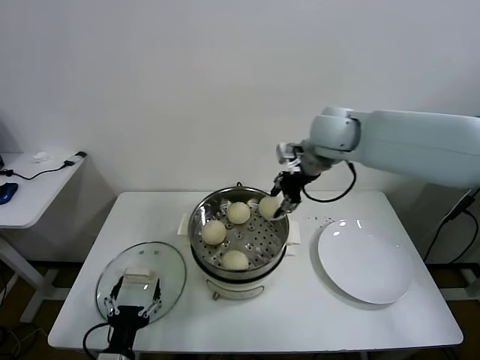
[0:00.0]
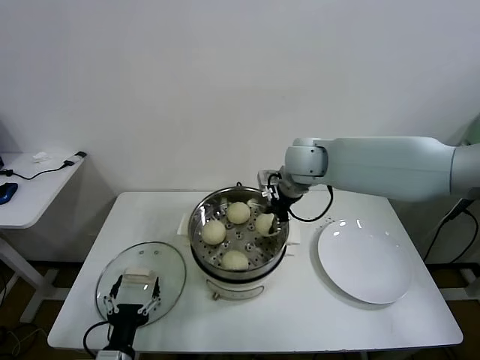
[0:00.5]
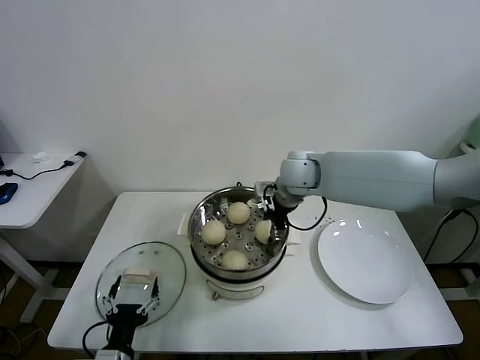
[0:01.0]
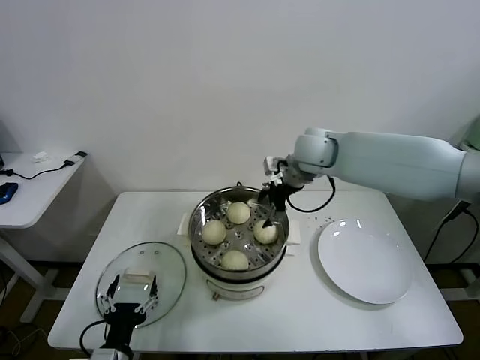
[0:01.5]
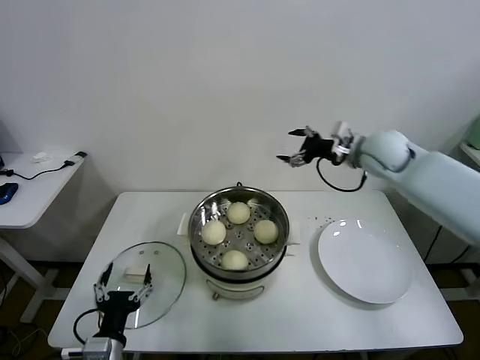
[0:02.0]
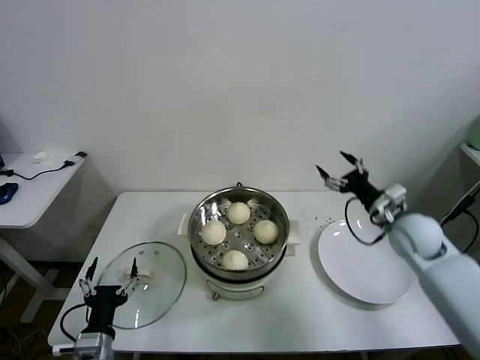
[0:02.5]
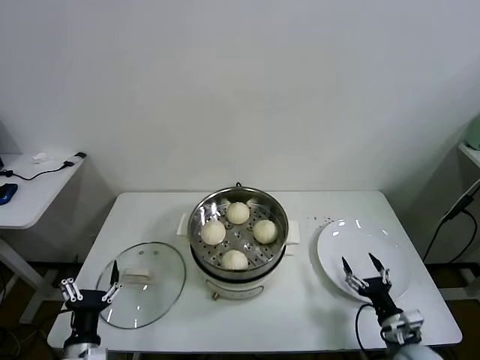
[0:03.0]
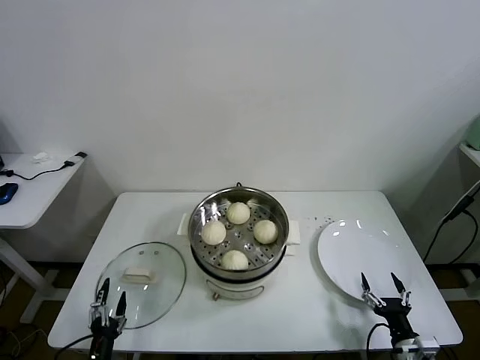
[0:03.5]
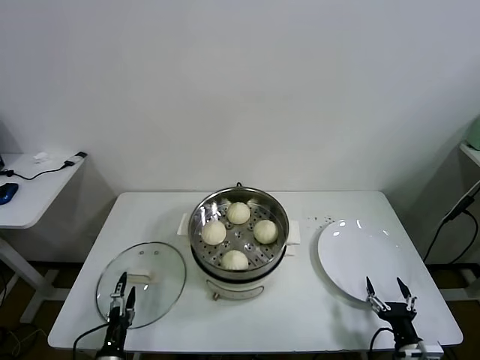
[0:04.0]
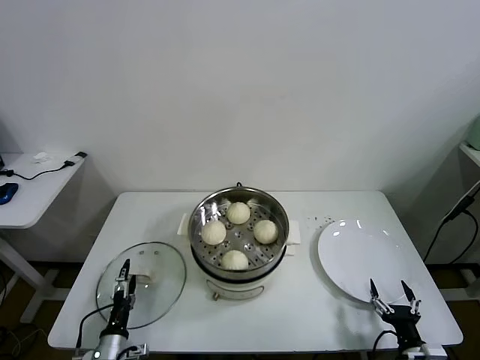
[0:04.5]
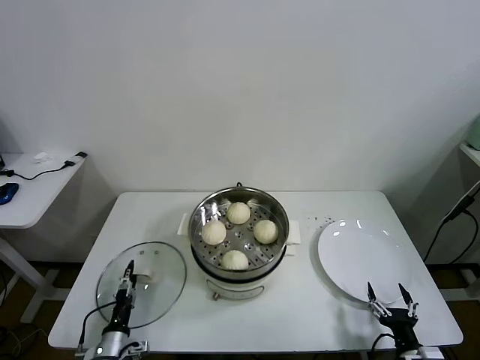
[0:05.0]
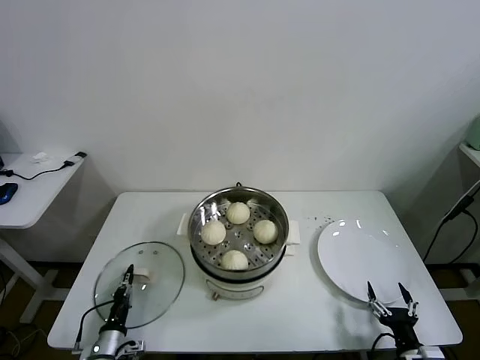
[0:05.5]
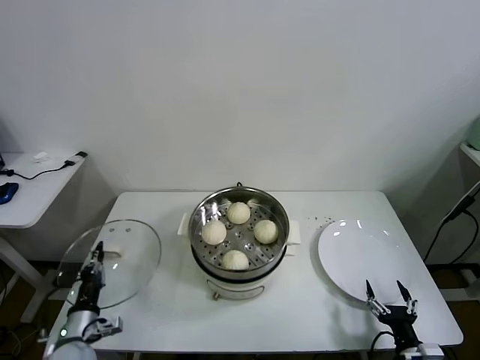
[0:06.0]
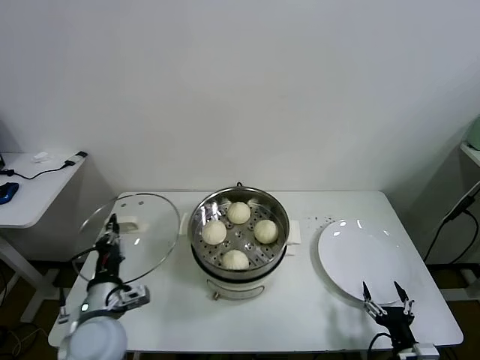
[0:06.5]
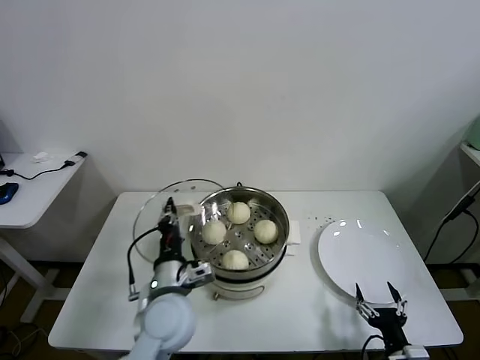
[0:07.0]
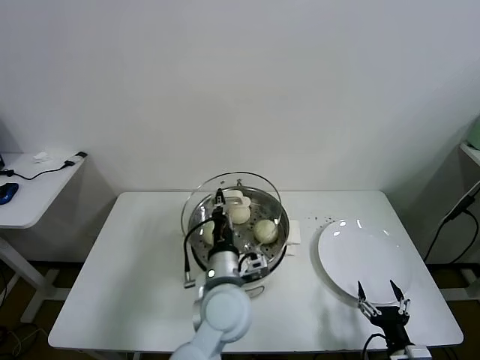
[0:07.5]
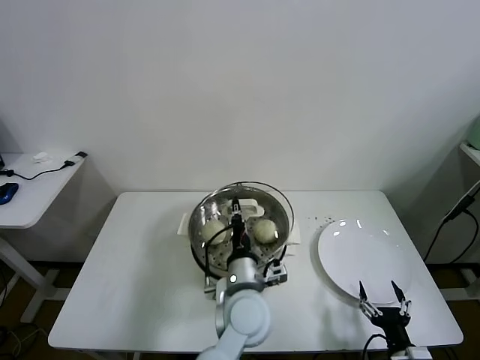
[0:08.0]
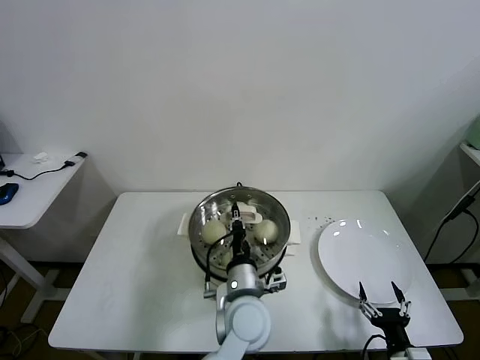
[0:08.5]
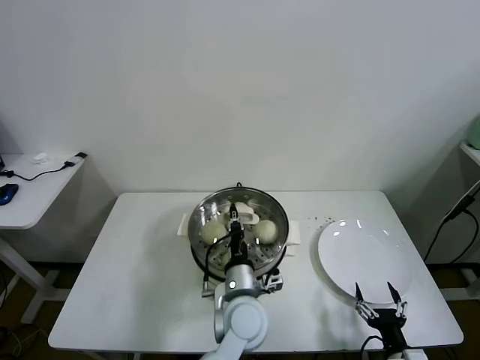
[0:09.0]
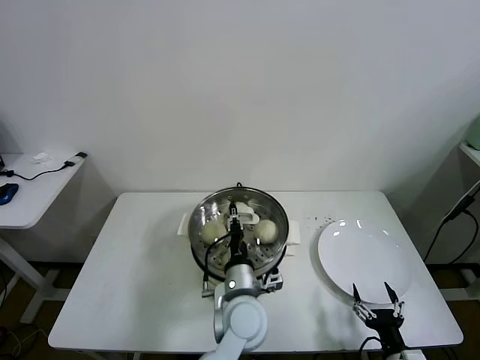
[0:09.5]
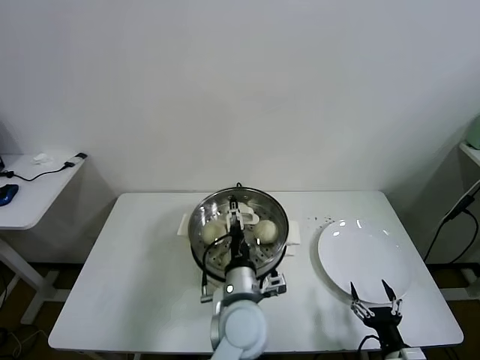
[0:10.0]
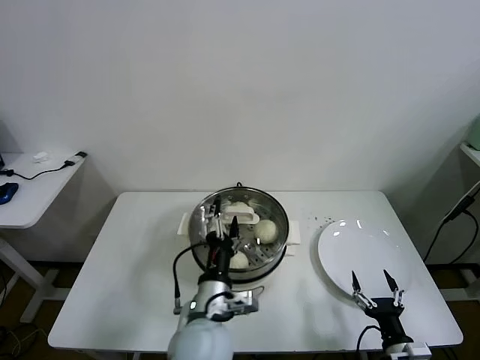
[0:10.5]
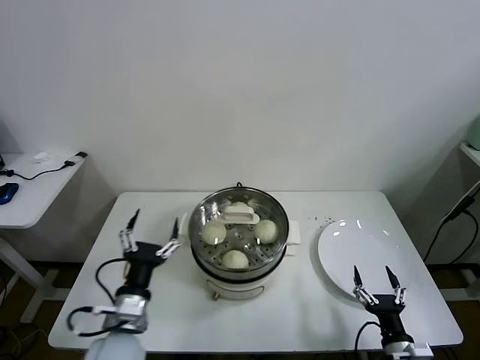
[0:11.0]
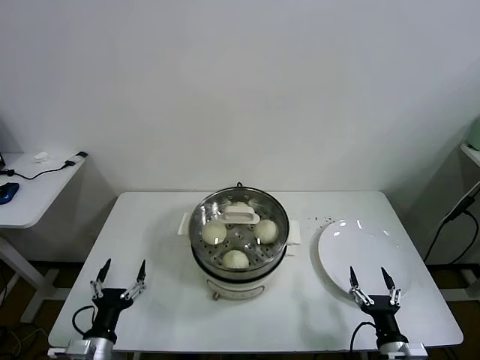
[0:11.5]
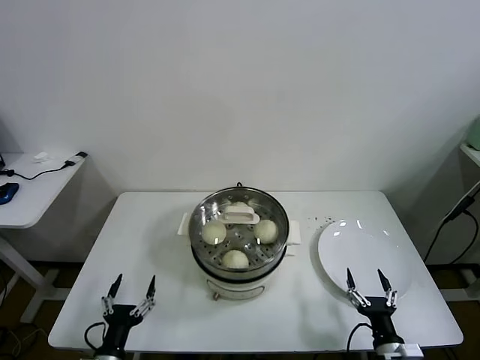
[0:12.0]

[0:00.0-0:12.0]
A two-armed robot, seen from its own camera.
Task of the whole recording: take steamed baozi put them in steamer.
Step, 0:01.5 to 0:05.5: Grasp the pot lid with left gripper.
Step, 0:06.0 to 0:10.0: Place the pot lid on the steamer with left gripper.
0:00.0 to 0:02.0: The right gripper shifts about 15 cm to the right and downward, and opens up.
0:02.0 to 0:04.0: The right gripper heads backward and downward, covering some 50 cm, while the left gripper shifts some 15 cm downward.
0:04.0 to 0:06.0: The left gripper heads forward and upward, covering approximately 10 cm, and closes up.
0:06.0 to 0:08.0: The left gripper shifts roughly 35 cm to the right.
0:08.0 to 0:10.0: The left gripper opens.
0:10.0 to 0:12.0: The left gripper goes about 35 cm to the left, downward and backward.

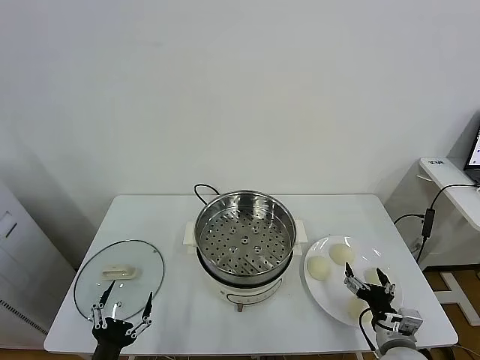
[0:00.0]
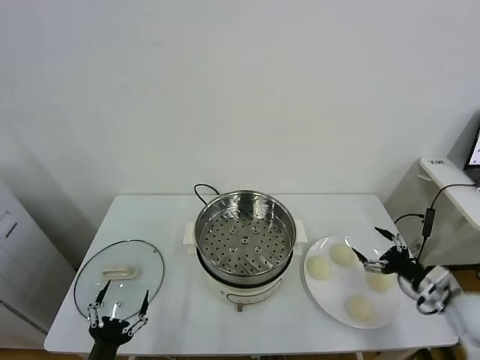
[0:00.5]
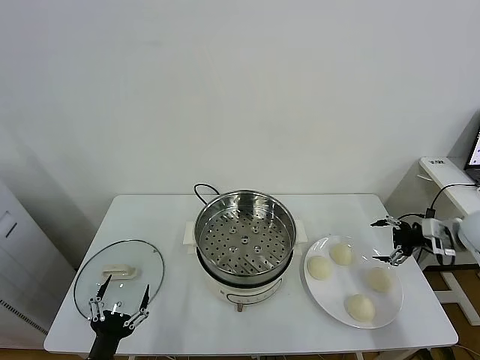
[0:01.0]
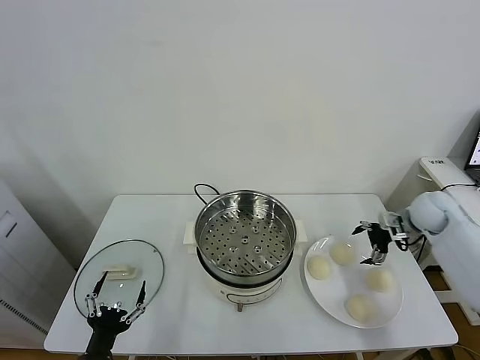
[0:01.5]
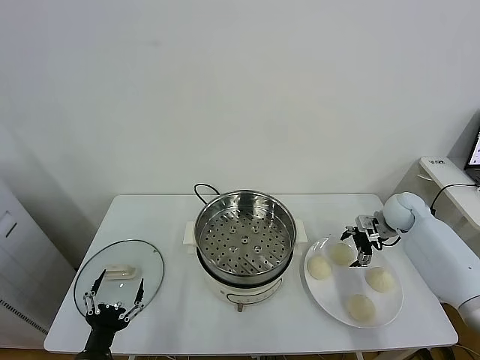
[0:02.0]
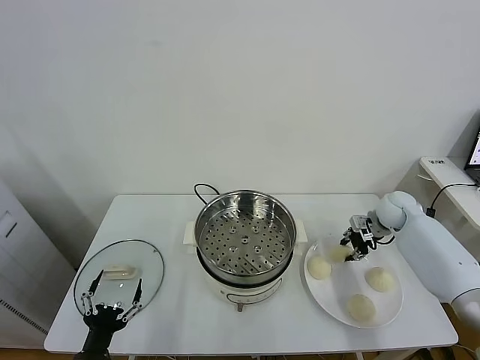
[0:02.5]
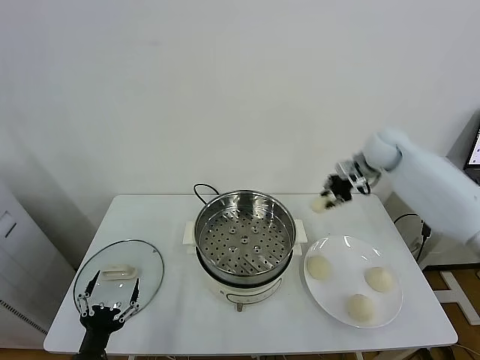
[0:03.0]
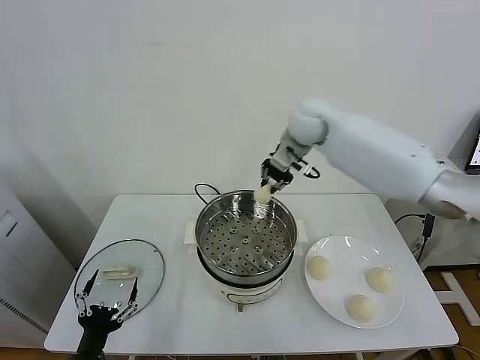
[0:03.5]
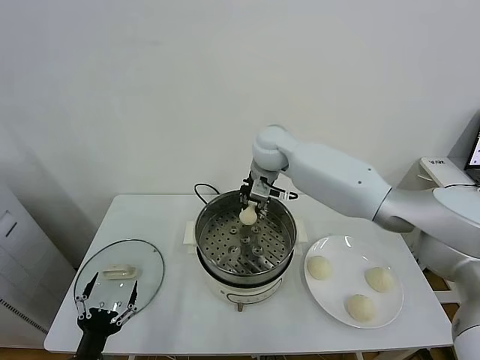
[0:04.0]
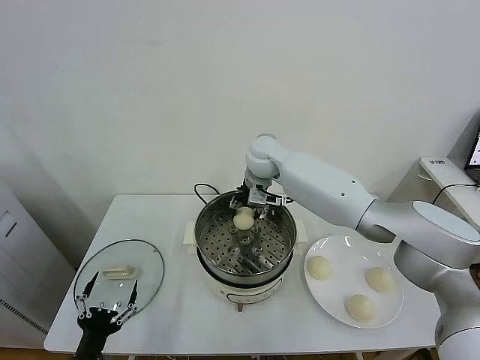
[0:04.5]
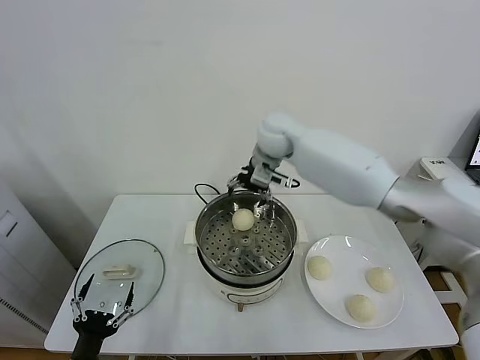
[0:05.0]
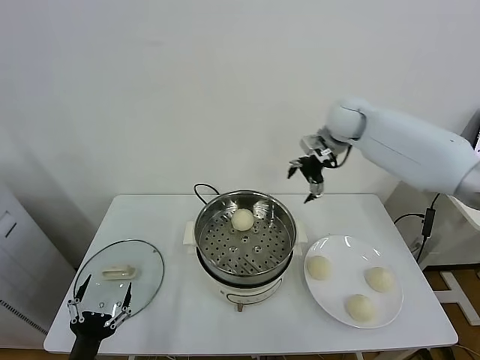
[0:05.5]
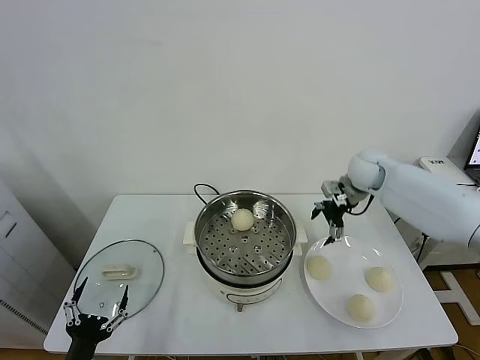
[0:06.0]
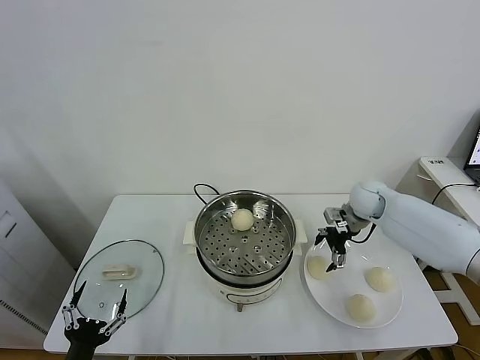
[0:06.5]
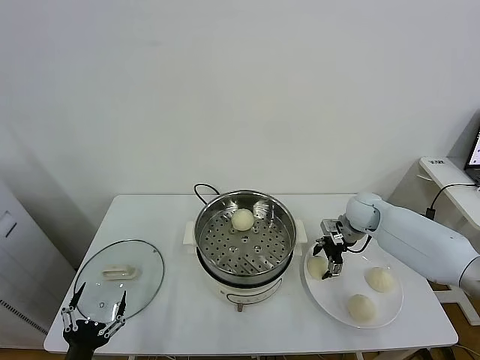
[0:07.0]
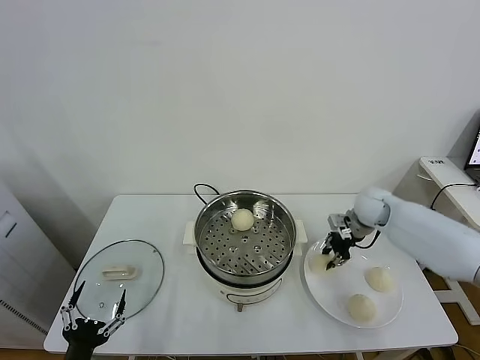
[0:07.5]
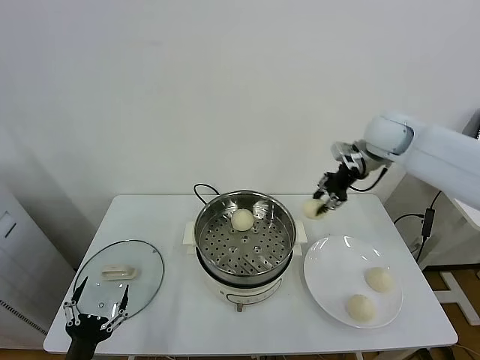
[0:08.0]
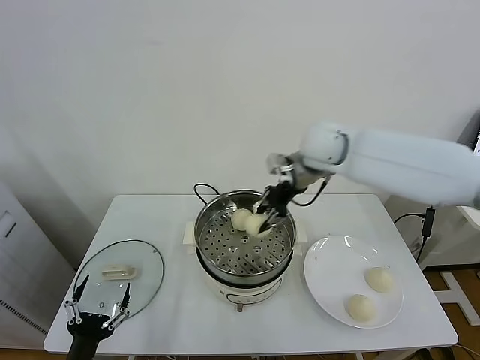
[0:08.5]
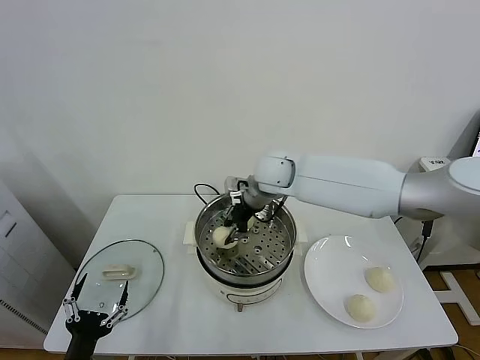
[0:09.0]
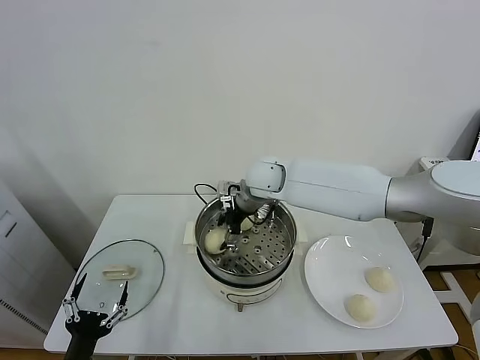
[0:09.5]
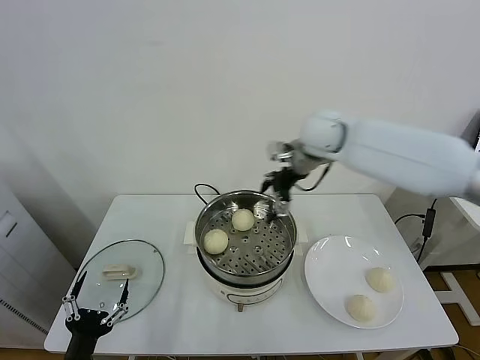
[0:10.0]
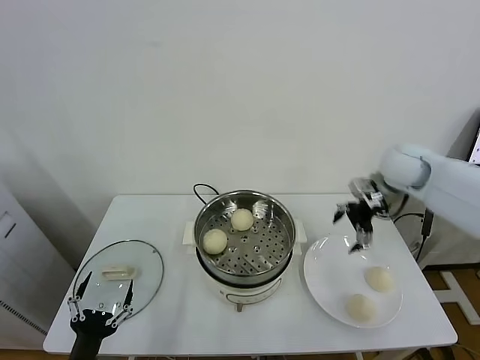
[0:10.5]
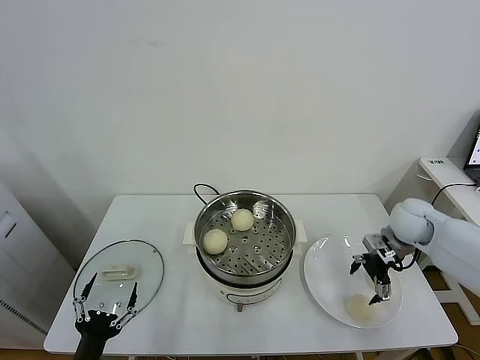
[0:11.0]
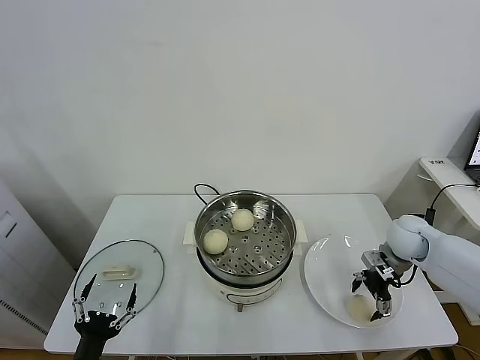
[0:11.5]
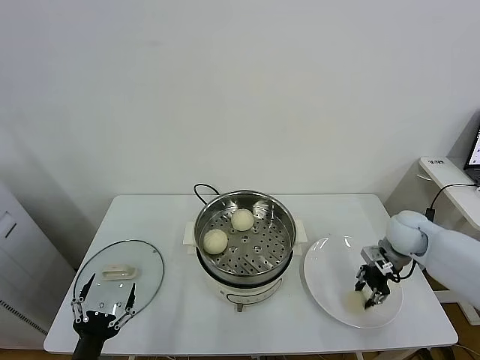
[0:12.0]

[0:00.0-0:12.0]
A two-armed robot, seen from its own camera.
Task of the whole recording: take steamed baozi put them in steamer.
Step, 0:00.0 to 0:02.0: Grasp the baozi in the plate with right gripper.
Step, 0:02.5 to 0:04.5: Place the baozi on the steamer with right gripper.
Step, 0:05.0 to 0:07.0: Grasp the baozi in the plate with right gripper.
Step, 0:07.5 to 0:09.5: Place the baozi on the steamer with right gripper.
Step, 0:10.0 to 0:11.5: Grasp the baozi in the plate with right gripper.
0:02.0 to 0:04.0: The right gripper is displaced to the left and upward by roughly 40 cm, and closes up.
0:04.0 to 0:06.0: The right gripper shifts about 25 cm to the right, and opens up.
0:06.0 to 0:08.0: The right gripper heads upward, covering roughly 15 cm, and closes up.
0:08.0 to 0:10.0: The right gripper is displaced to the left by roughly 10 cm, and opens its fingers.
0:10.0 to 0:12.0: The right gripper shifts roughly 30 cm downward and to the right, and closes its fingers.

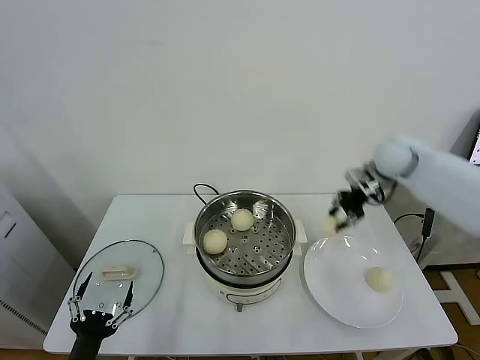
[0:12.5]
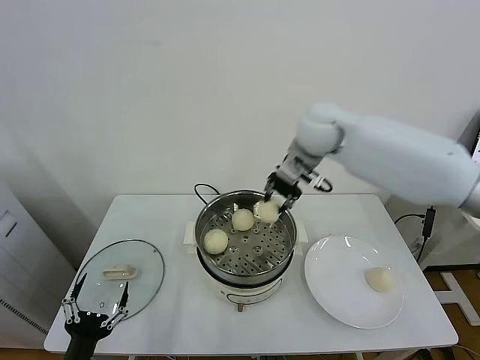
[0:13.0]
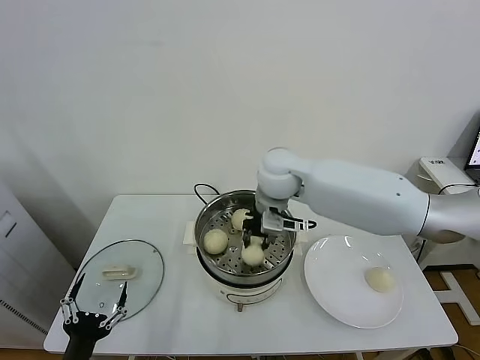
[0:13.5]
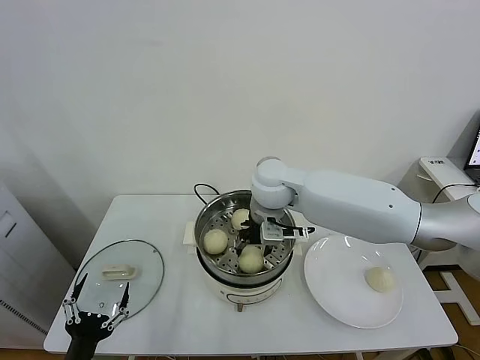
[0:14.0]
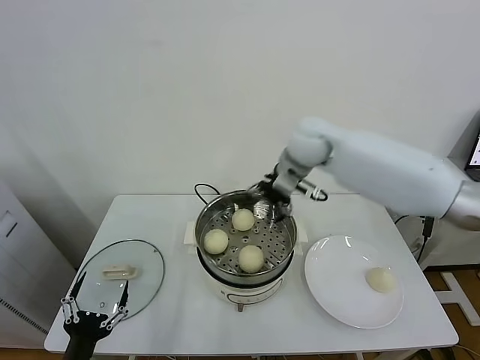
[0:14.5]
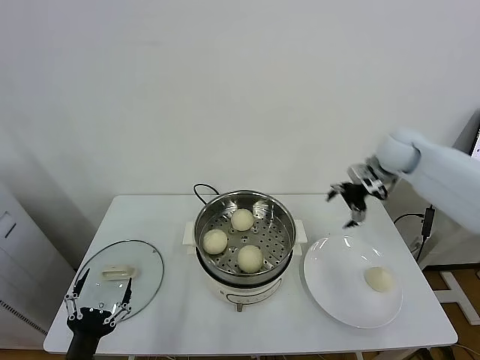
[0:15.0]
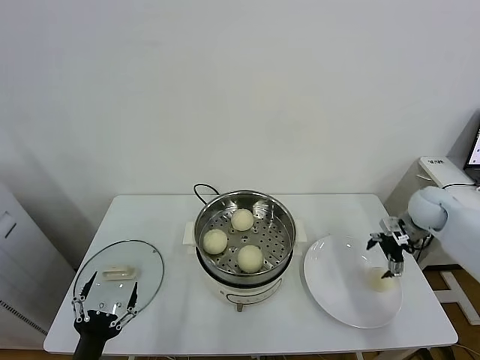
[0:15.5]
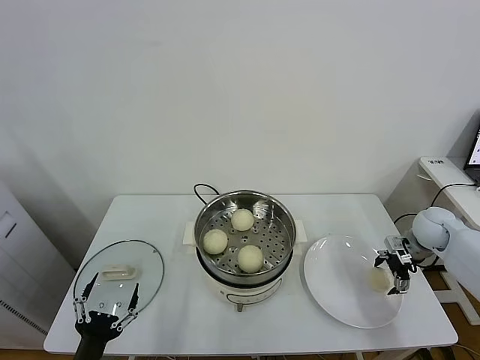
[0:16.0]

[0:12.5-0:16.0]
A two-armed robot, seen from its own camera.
Task of the whole recording: take steamed baozi put them in steamer.
Step, 0:12.5 to 0:14.0: Place the baozi on the steamer with right gripper.
0:12.5 to 0:14.5: The right gripper travels to the left by some 20 cm, and opens its fingers.
0:14.5 to 0:16.0: The right gripper travels to the right and downward by roughly 40 cm.
